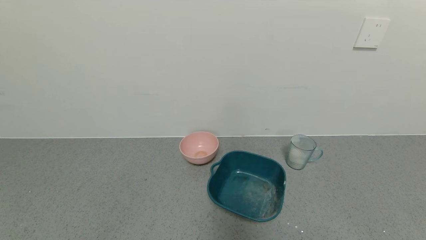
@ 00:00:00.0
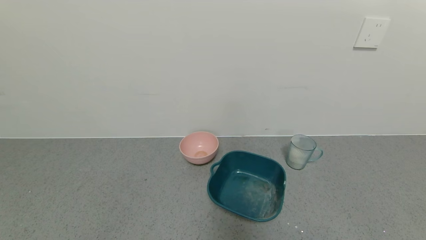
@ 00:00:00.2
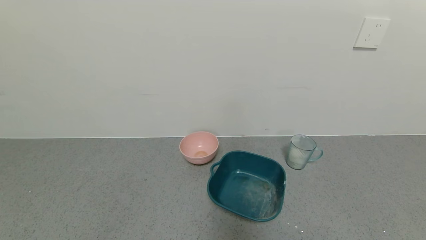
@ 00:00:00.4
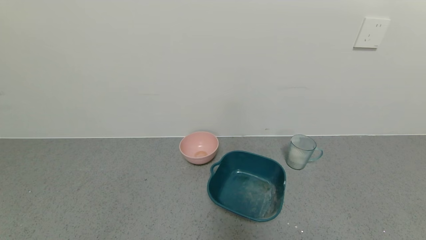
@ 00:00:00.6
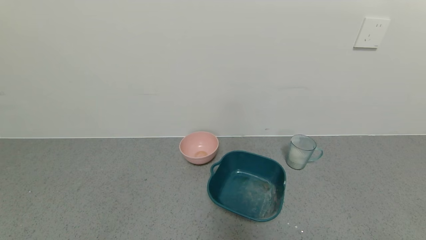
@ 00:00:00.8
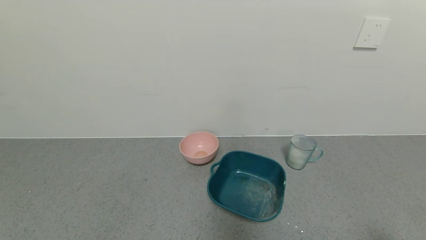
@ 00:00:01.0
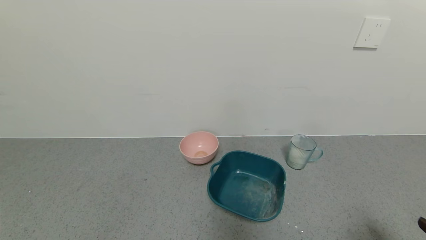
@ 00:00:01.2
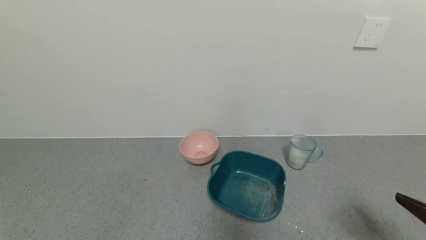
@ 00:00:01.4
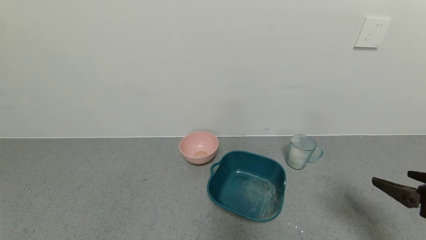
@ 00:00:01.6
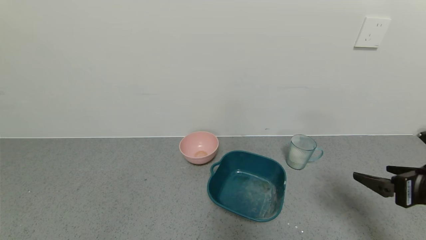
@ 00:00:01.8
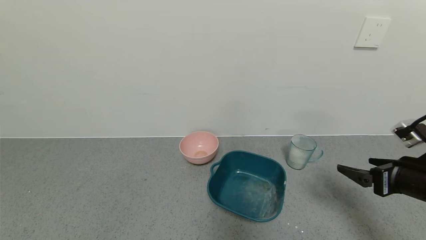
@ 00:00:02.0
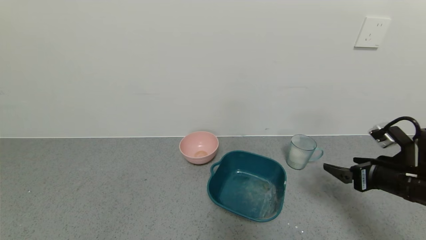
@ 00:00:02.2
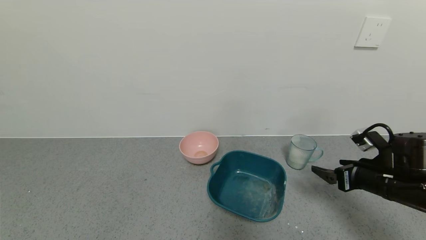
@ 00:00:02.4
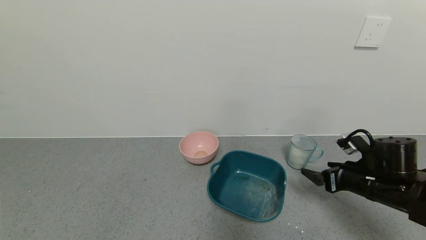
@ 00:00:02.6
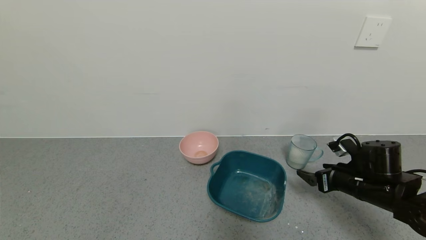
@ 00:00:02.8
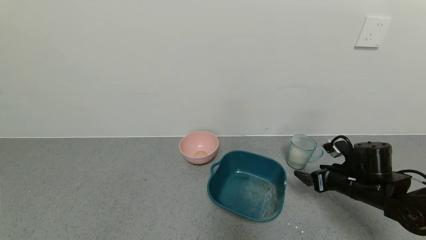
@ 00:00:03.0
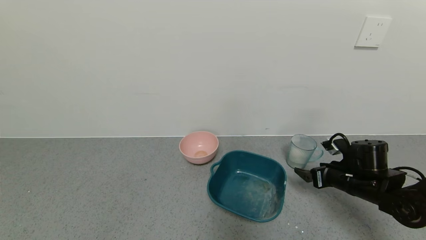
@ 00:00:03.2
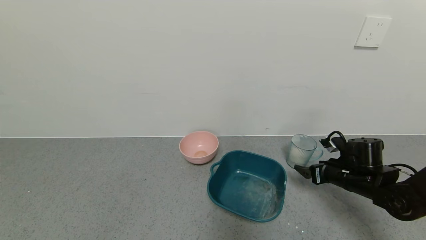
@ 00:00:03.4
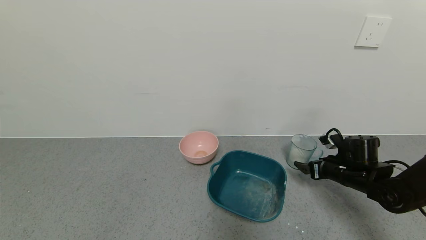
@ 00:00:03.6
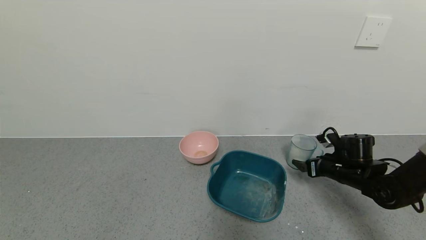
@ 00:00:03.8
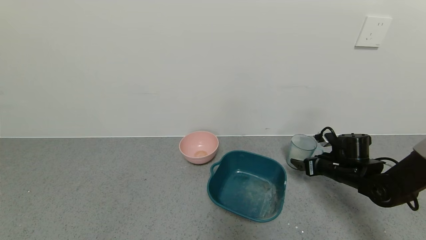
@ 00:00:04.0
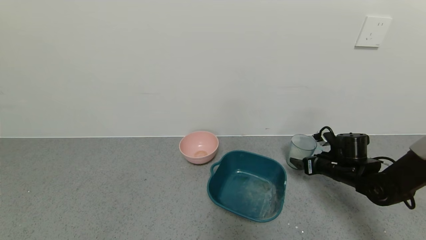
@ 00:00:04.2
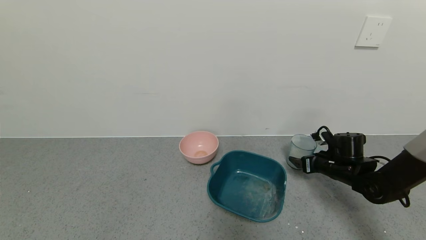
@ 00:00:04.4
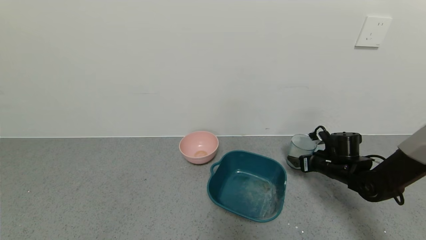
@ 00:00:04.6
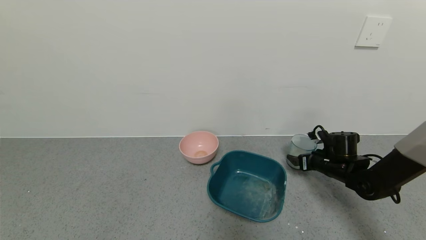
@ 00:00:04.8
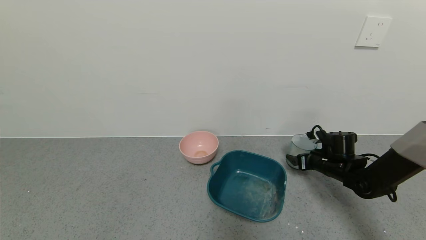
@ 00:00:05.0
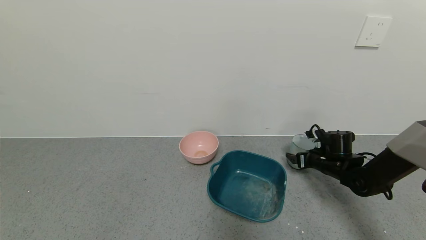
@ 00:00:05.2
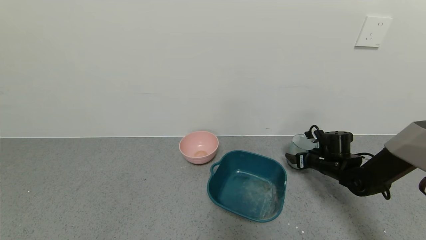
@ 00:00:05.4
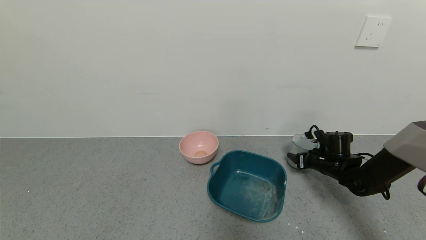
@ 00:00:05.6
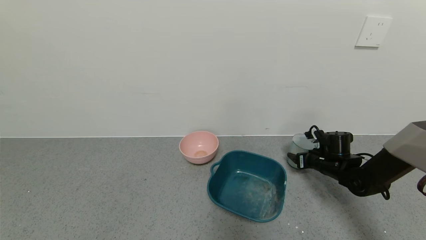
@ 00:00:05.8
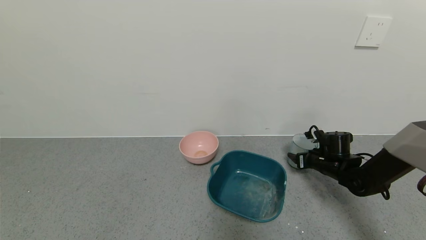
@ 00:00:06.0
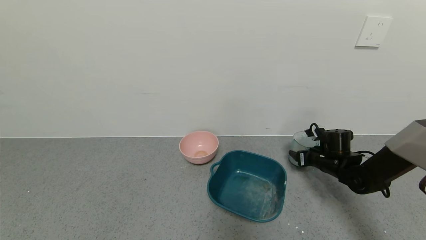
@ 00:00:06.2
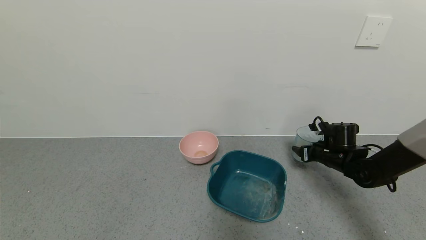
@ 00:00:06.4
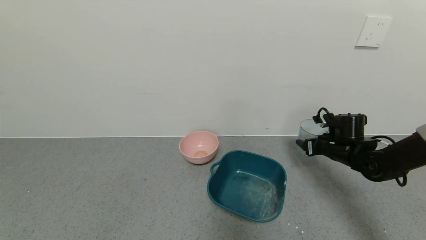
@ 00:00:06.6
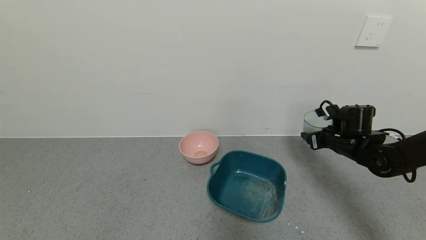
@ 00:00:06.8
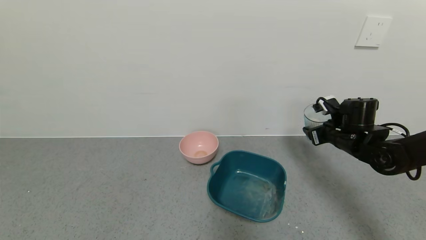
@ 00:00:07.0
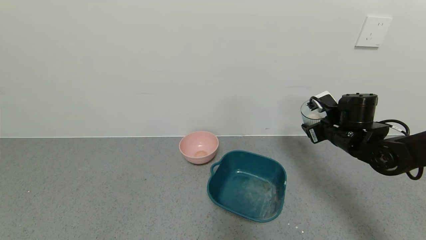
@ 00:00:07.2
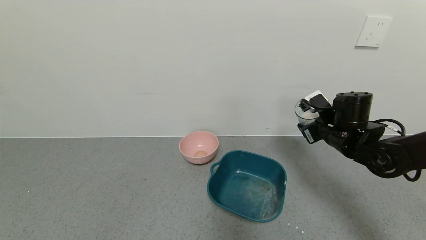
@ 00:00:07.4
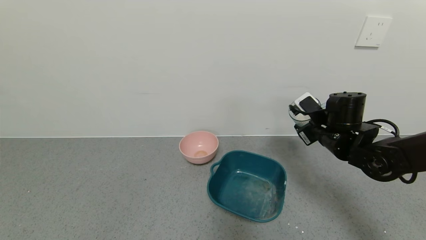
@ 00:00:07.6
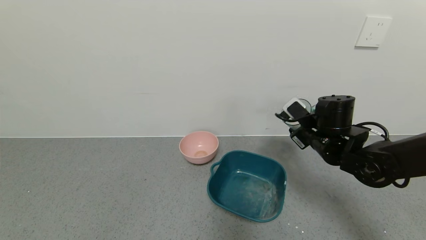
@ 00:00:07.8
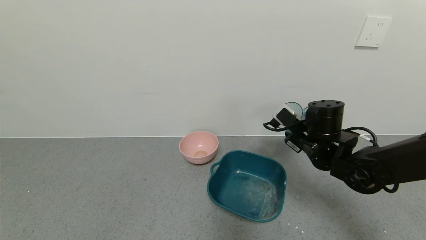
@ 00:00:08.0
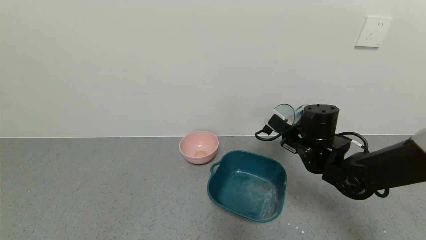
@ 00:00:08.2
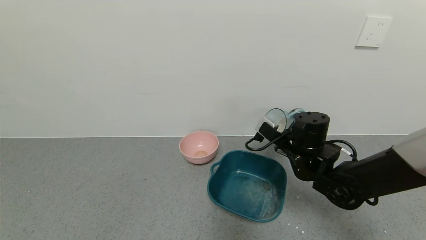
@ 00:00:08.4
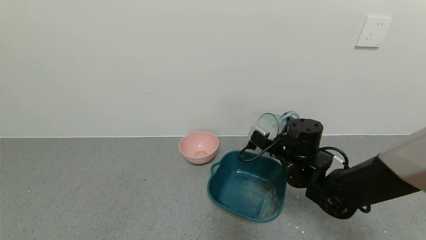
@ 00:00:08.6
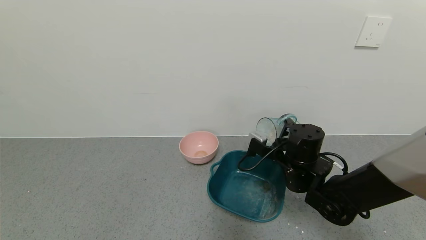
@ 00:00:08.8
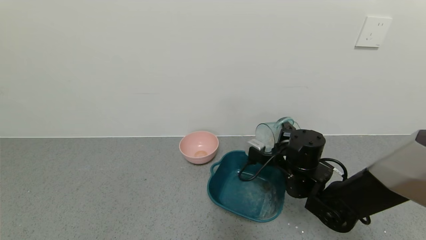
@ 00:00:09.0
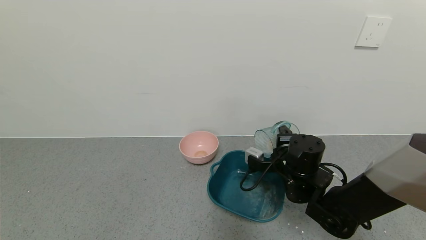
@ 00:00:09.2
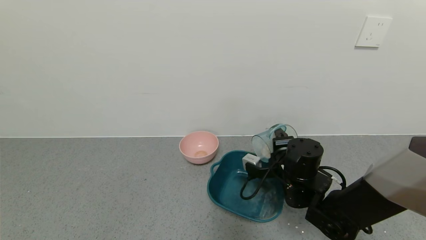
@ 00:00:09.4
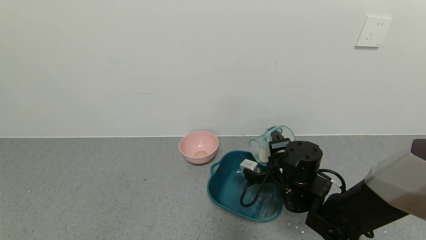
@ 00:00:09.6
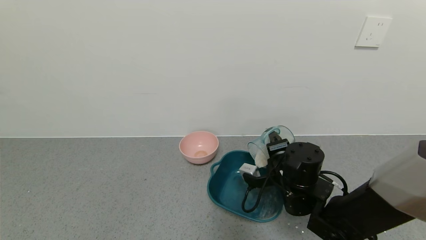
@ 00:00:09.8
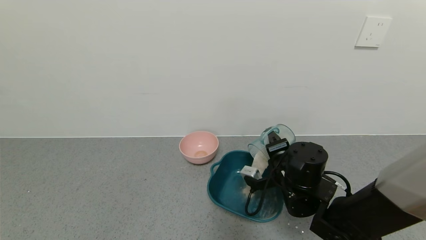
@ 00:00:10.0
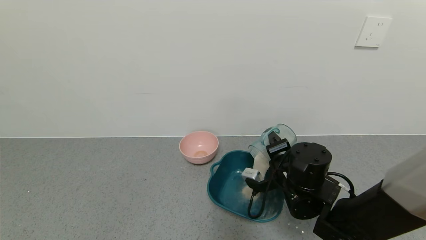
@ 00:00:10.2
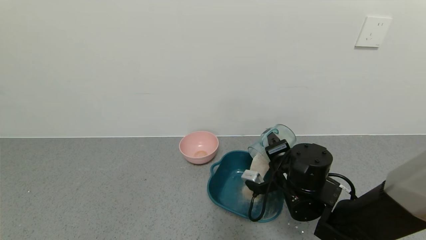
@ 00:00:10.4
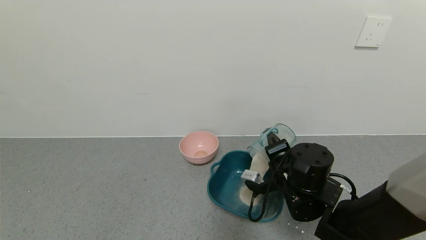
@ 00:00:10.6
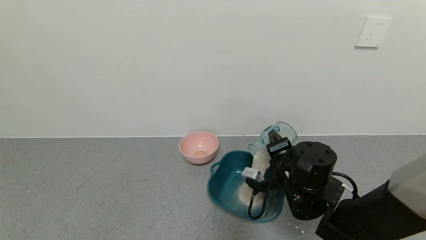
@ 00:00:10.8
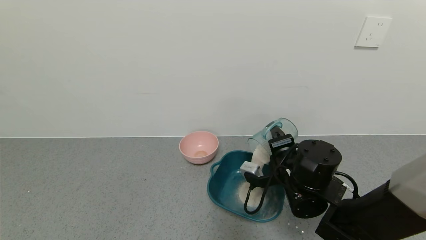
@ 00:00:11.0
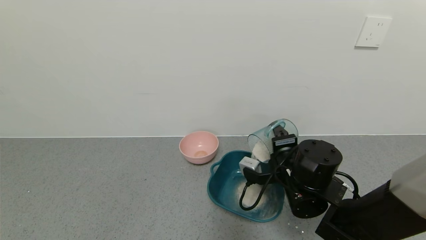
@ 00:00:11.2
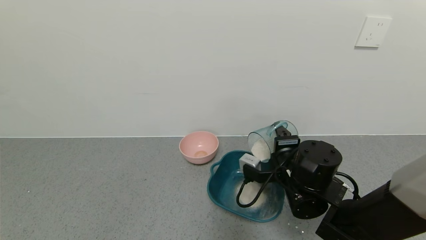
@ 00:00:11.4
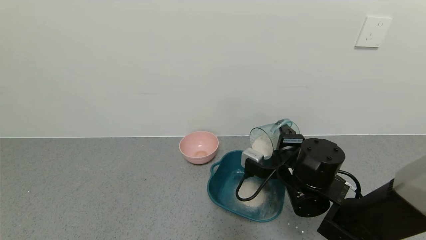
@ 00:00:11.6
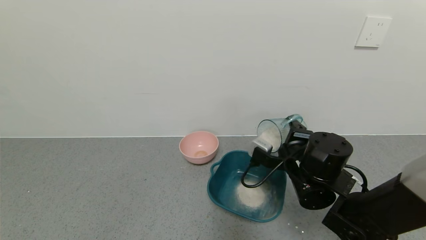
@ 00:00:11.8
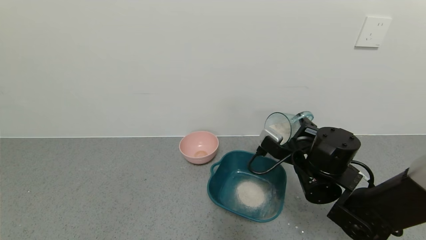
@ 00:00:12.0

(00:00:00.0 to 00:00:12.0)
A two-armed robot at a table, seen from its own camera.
Task of the whole recording: use a gripper to pick up the cup and pour the powder into a bowl or tray.
Step, 00:00:00.0 - 00:00:05.6: Grasp the glass of powder with the right gripper.
Step, 00:00:05.8 - 00:00:11.2: Pour the powder into the pink bowl with the right gripper.
00:00:00.0 - 00:00:01.6: The right gripper travels forward and upward by about 20 cm.
00:00:01.6 - 00:00:03.0: The right gripper goes approximately 20 cm forward and downward.
00:00:03.0 - 00:00:04.4: The right gripper moves forward, approximately 5 cm.
00:00:04.4 - 00:00:06.0: The right gripper closes its fingers.
00:00:06.0 - 00:00:07.6: The right gripper heads upward and to the left, covering some 15 cm.
00:00:07.6 - 00:00:09.0: The right gripper heads to the left and downward, covering roughly 10 cm.

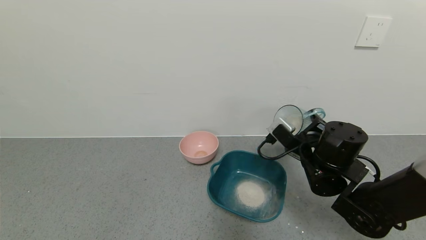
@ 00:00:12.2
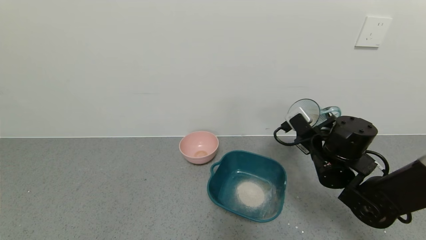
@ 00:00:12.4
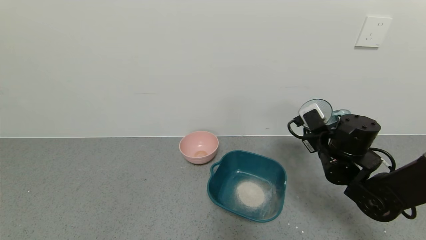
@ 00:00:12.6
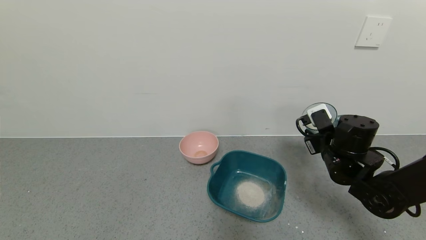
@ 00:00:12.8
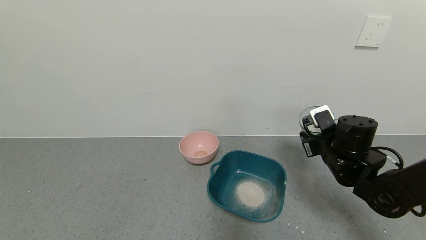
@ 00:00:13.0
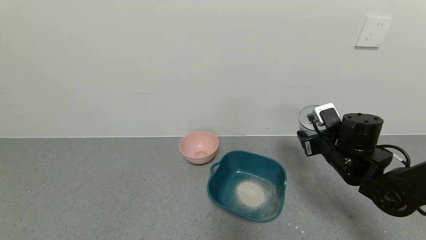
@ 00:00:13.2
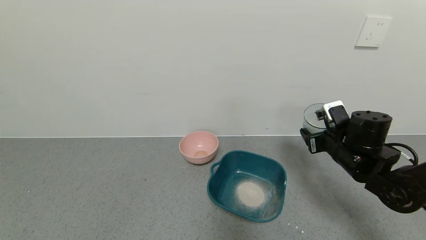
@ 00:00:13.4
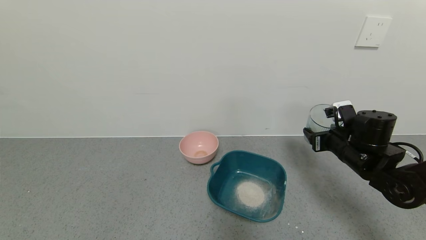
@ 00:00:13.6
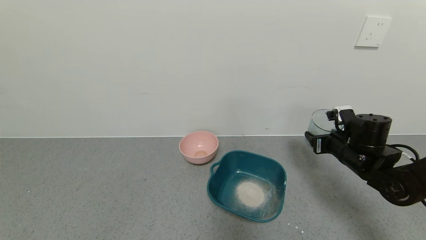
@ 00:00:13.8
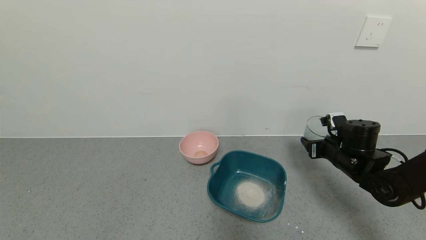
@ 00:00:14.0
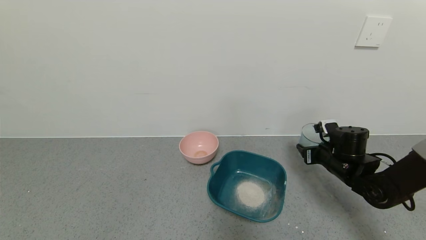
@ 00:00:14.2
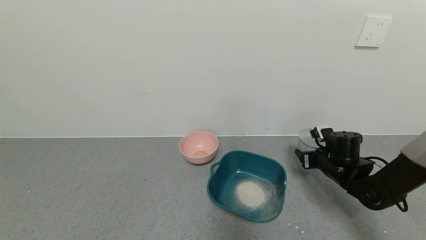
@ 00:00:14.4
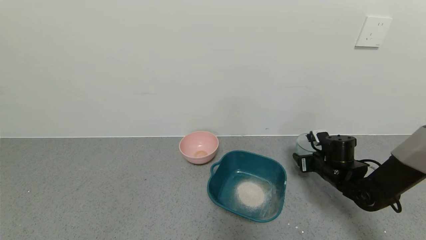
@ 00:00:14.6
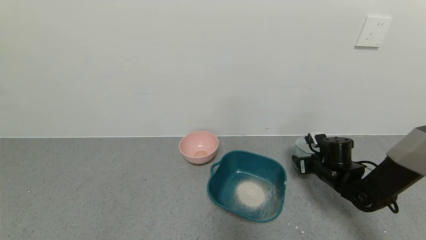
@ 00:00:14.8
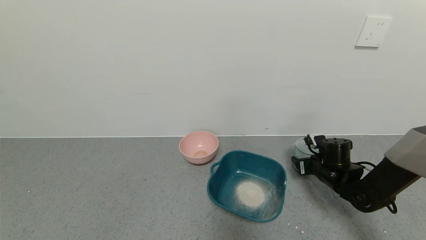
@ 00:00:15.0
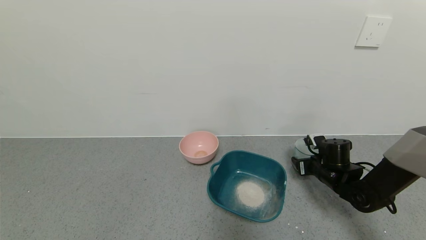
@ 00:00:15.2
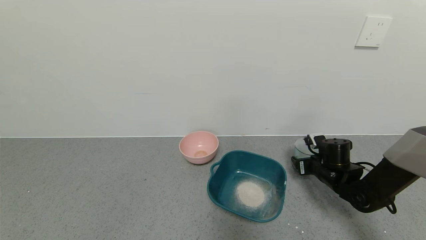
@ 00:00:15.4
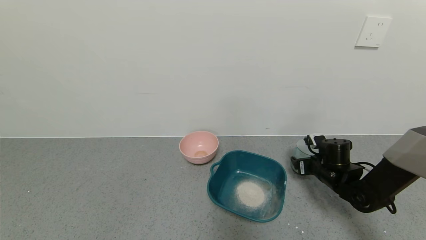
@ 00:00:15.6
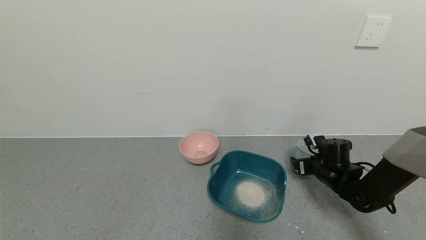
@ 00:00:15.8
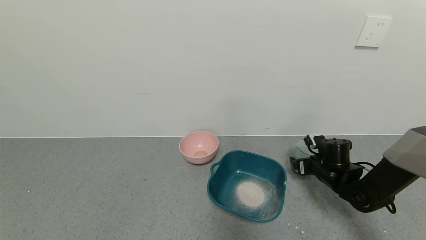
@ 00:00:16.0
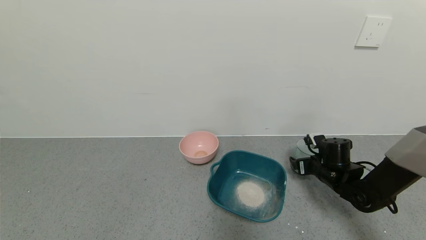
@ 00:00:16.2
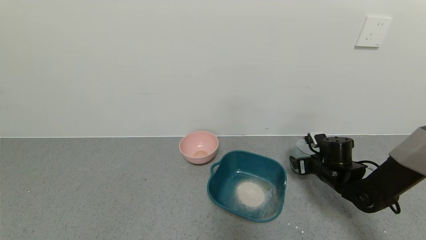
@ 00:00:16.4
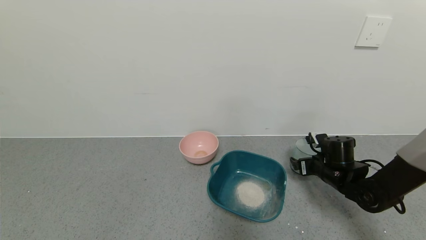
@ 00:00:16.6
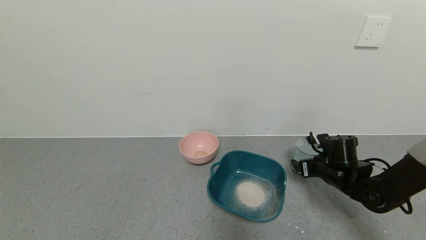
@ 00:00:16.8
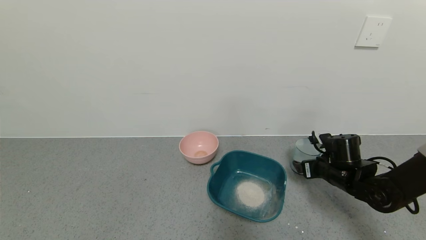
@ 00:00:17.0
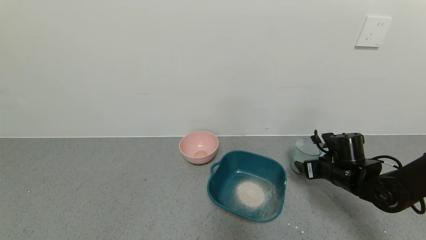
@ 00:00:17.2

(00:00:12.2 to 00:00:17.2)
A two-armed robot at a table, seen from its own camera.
Task of the whole recording: use a gripper to pick up the cup and pour the powder into a bowl or tray.
Step, 00:00:12.2 - 00:00:17.0: Place the glass cup down with the right gripper.
00:00:12.2 - 00:00:13.8: The right gripper travels to the right by about 10 cm.
00:00:13.8 - 00:00:15.6: The right gripper shifts some 10 cm downward, and opens.
00:00:15.6 - 00:00:17.2: The right gripper moves about 5 cm, and opens its fingers.
